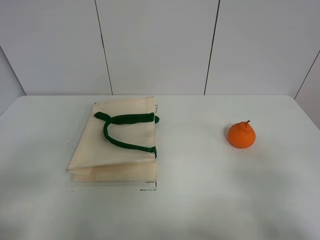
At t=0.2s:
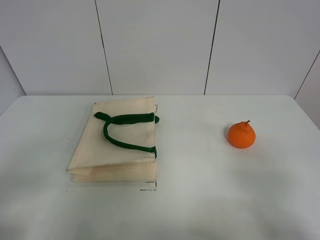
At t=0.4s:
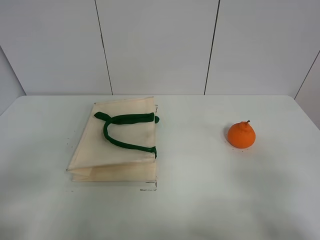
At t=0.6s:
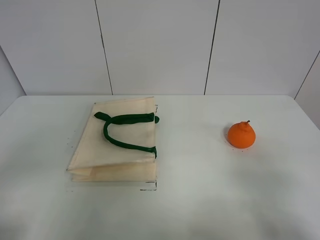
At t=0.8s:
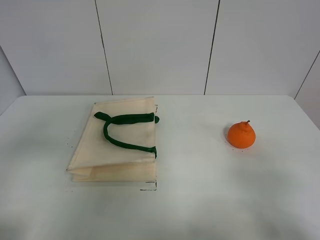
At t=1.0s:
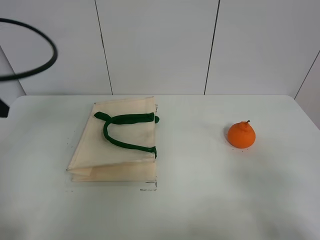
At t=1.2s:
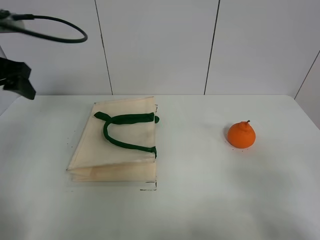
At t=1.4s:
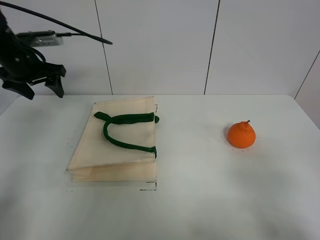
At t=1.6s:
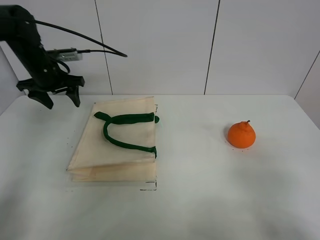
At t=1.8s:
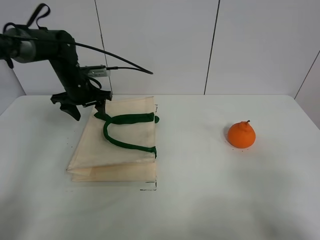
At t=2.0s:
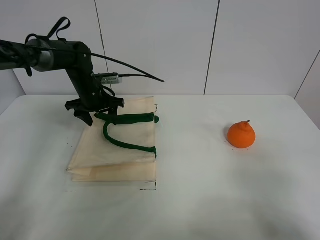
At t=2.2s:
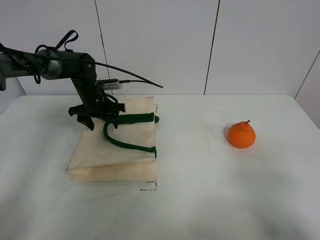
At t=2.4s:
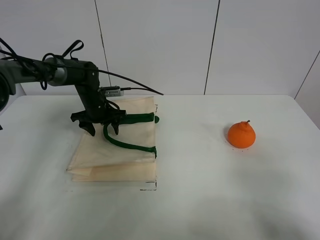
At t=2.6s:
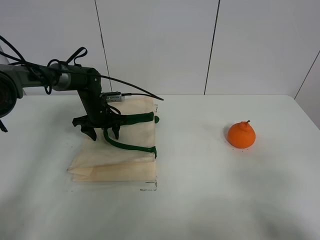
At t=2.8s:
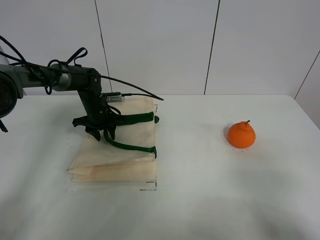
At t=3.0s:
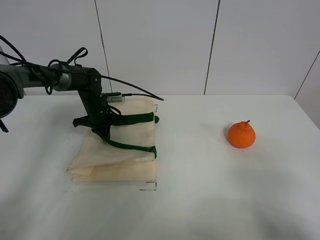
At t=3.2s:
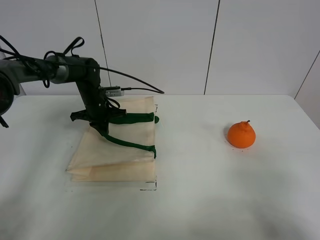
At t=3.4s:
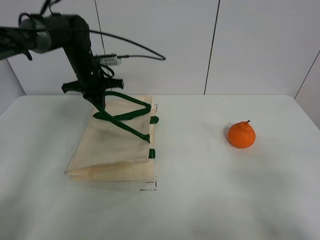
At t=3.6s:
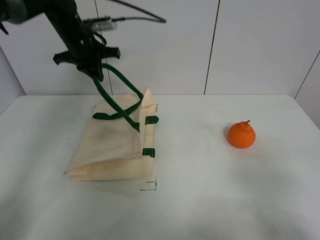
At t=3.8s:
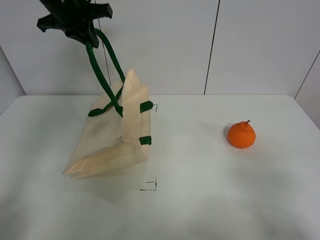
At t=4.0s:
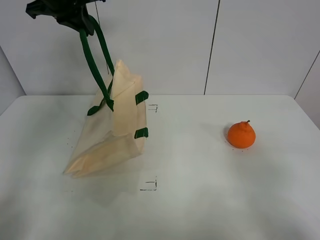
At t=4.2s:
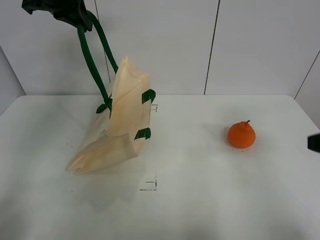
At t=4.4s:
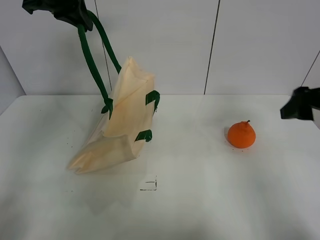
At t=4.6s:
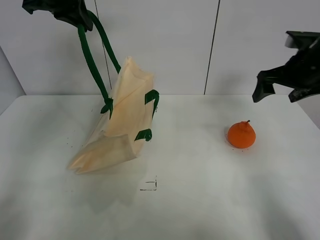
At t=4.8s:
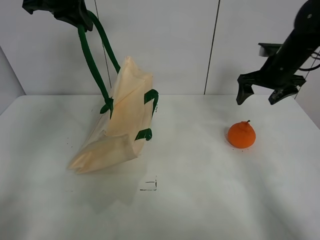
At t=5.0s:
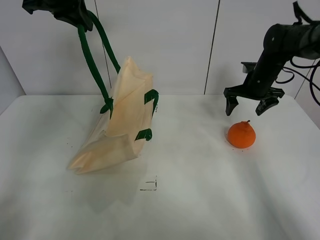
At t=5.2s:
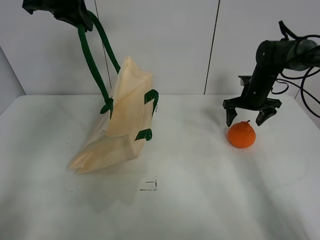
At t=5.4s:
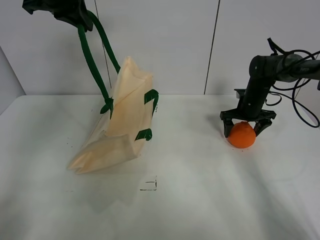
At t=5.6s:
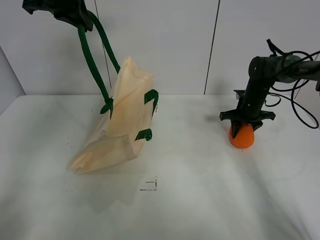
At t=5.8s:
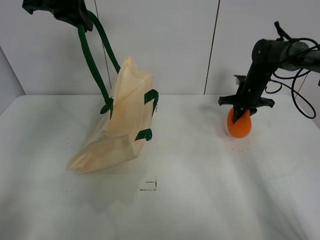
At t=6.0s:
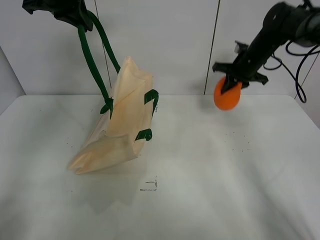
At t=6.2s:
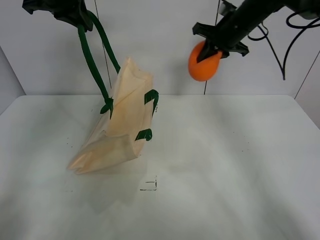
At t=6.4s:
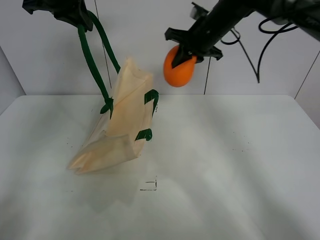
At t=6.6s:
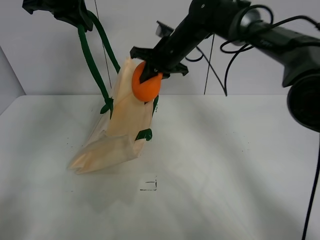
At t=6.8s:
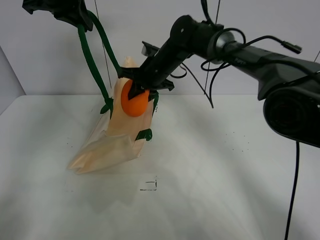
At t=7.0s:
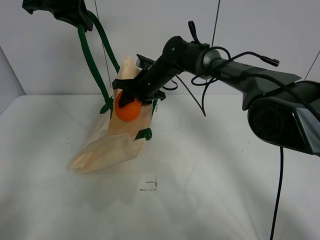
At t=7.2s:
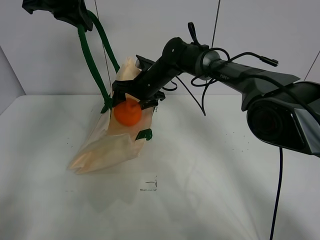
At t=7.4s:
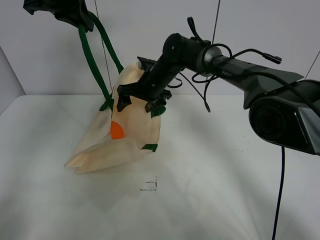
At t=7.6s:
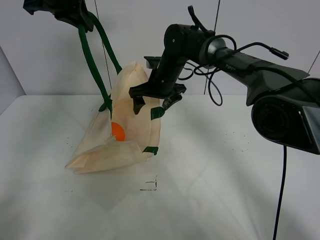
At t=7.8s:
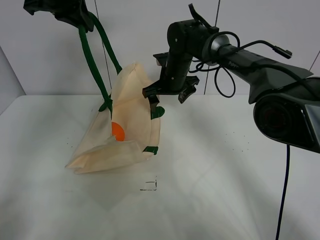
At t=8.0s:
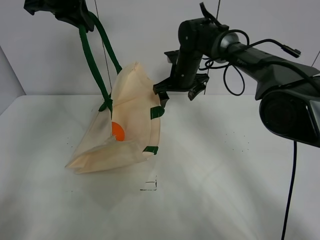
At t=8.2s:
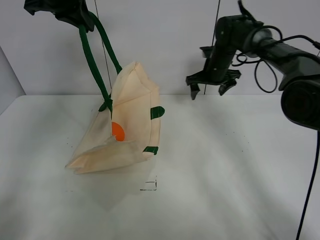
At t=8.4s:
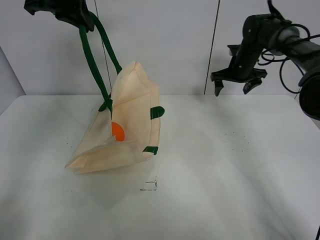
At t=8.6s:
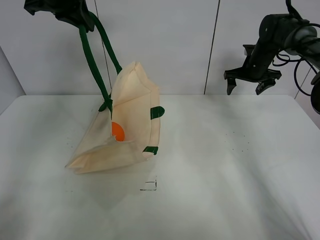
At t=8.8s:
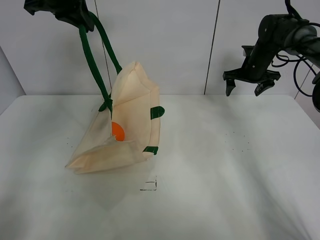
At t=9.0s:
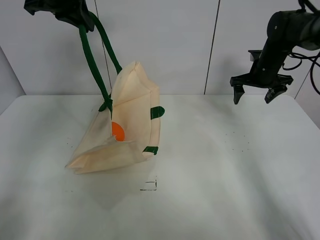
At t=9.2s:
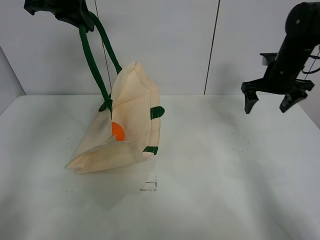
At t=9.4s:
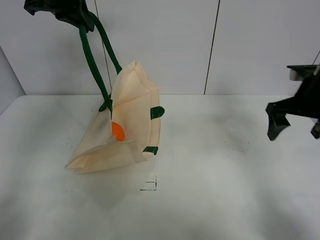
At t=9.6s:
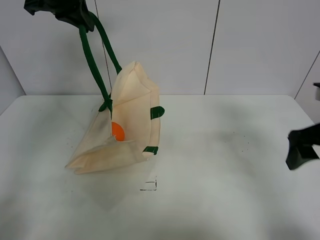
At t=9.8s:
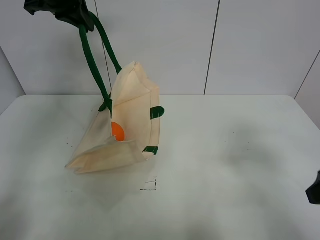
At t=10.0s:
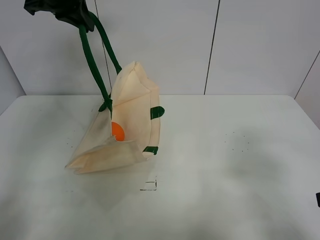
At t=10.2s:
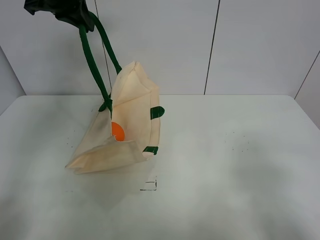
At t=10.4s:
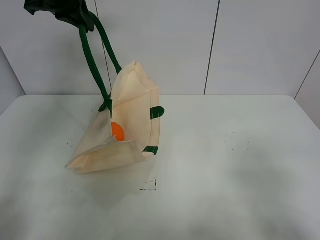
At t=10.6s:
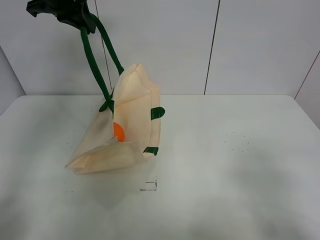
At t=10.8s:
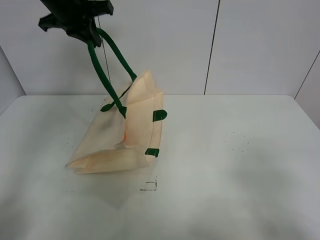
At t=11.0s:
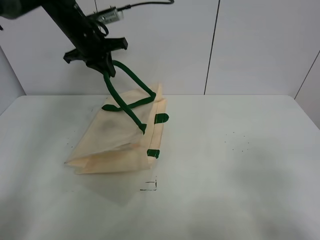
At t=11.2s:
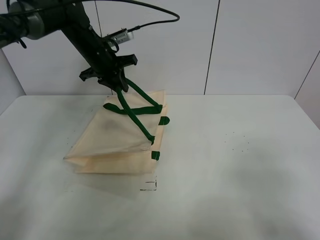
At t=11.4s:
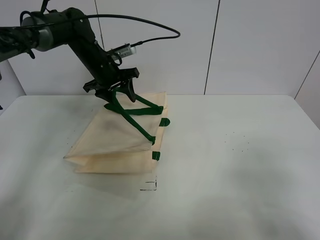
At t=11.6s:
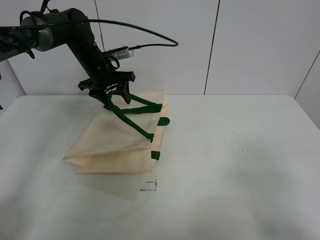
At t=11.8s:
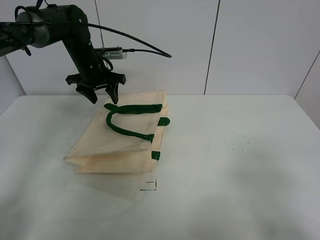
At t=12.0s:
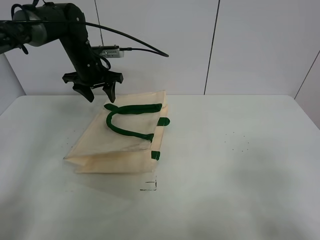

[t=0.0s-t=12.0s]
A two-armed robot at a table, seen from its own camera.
Task of the whole recording: open the white linen bag and put the orange in the bag.
Step, t=0.0s to t=3.6s: Lift the handbag with left gripper.
Step, t=3.8s to t=5.6s: Grasp the orange with right gripper.
Step, t=5.8s to t=7.2s: Place the orange in the handbag with right gripper.
Step, t=7.4s to t=11.8s: Put down the handbag with left gripper.
t=0.0s to t=1.6s: The left gripper moves forward, some 40 cm.
t=1.6s to t=3.0s: The left gripper goes about 15 cm downward and to the right, and closes its fingers.
t=3.0s to t=4.4s: The left gripper is displaced upward by some 30 cm. Meanwhile the right gripper goes approximately 25 cm forward.
t=4.4s to t=6.0s: The right gripper is displaced forward by some 25 cm, and closes.
t=6.0s to t=7.6s: The right gripper moves to the left, approximately 20 cm, and opens.
t=7.6s to t=9.0s: The right gripper is displaced to the right by some 25 cm.
t=9.0s to t=10.4s: The right gripper is displaced backward by some 50 cm.
t=10.4s to t=12.0s: The left gripper heads downward, covering about 20 cm, and opens its fingers.

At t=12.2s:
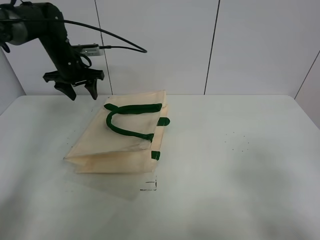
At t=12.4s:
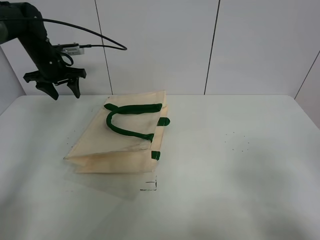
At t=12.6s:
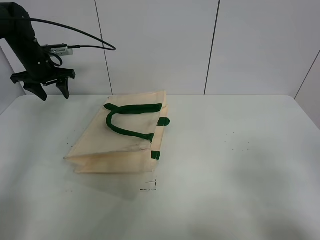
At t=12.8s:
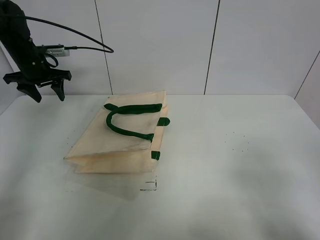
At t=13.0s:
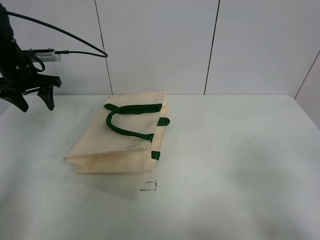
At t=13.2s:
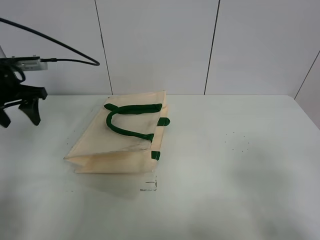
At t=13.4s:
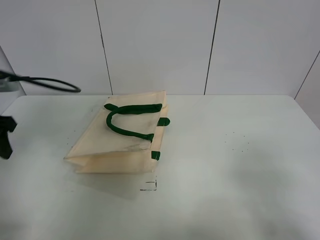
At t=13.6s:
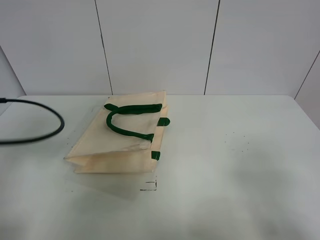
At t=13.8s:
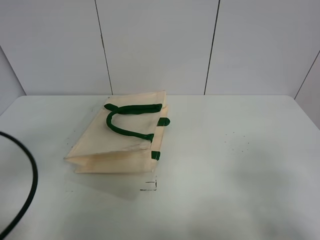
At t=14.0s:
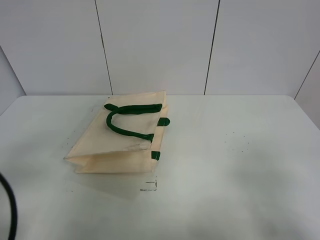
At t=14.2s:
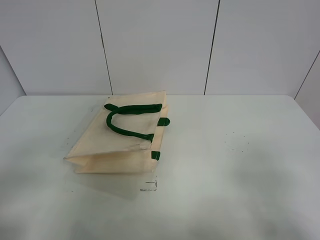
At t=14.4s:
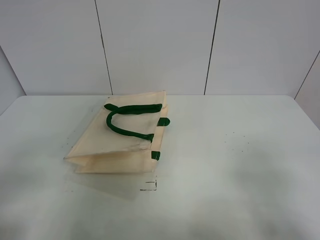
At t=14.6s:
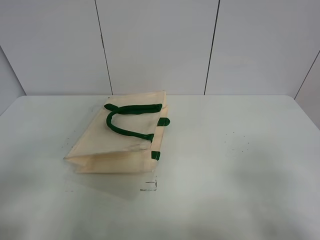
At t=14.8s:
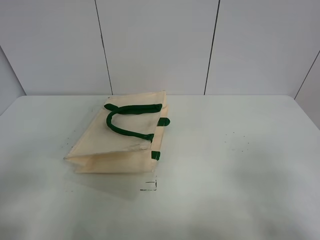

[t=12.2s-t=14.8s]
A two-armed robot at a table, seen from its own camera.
Task of the whole recording: open the white linen bag and put the orange in the bag.
t=12.2s to t=13.4s: The left gripper heads backward, covering some 30 cm.
t=13.4s to t=14.8s: The left gripper is displaced backward by roughly 20 cm.
